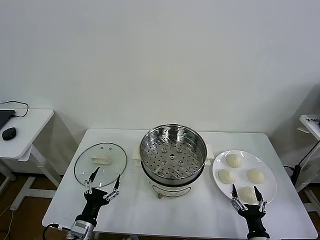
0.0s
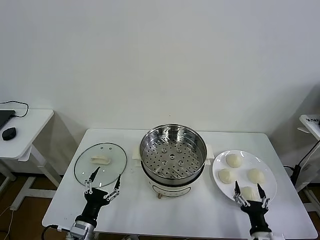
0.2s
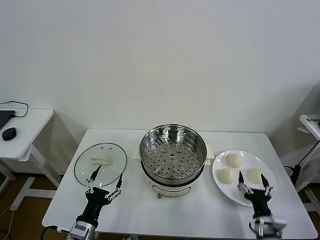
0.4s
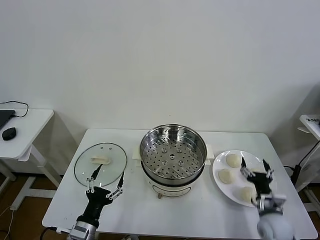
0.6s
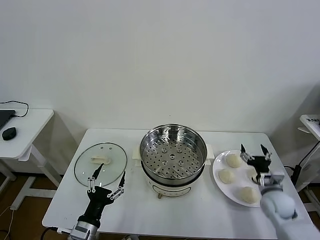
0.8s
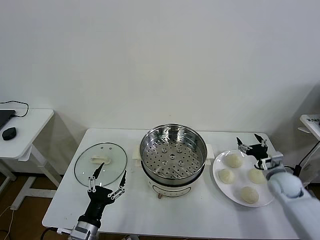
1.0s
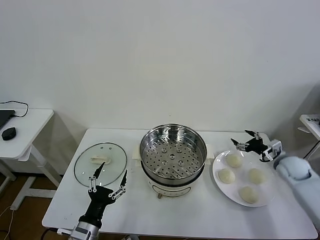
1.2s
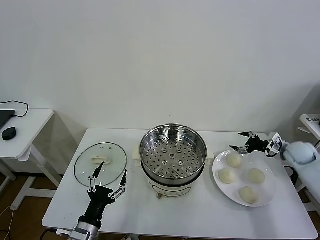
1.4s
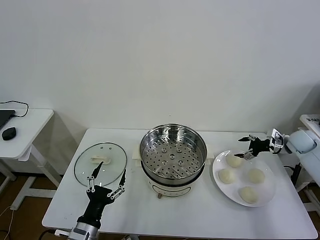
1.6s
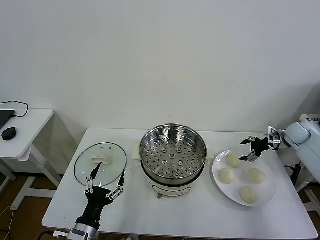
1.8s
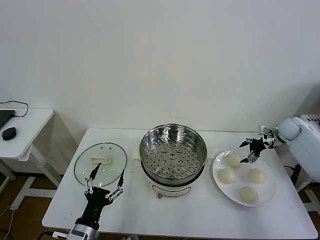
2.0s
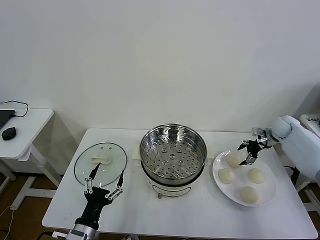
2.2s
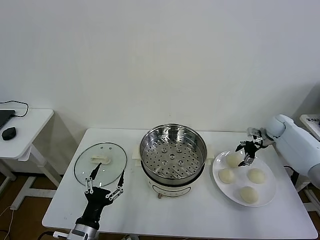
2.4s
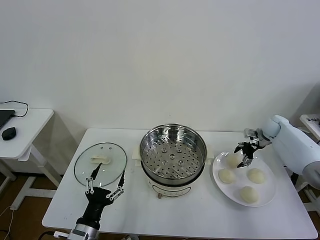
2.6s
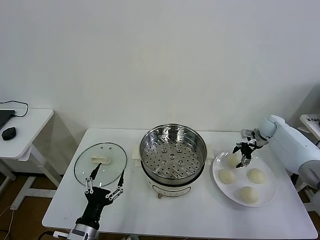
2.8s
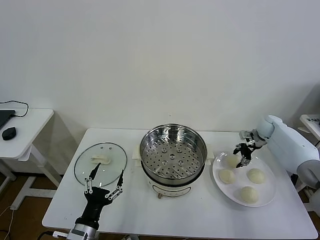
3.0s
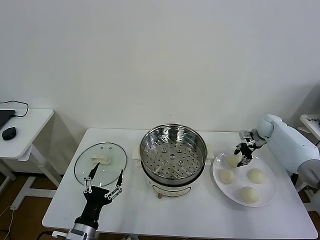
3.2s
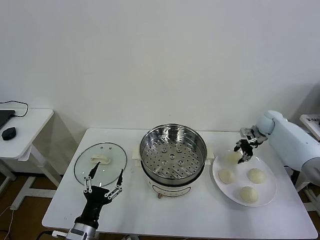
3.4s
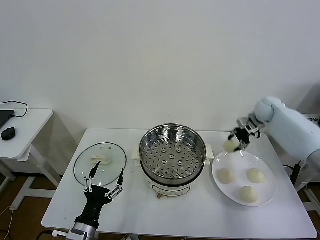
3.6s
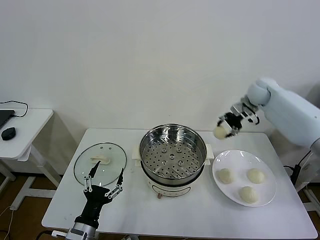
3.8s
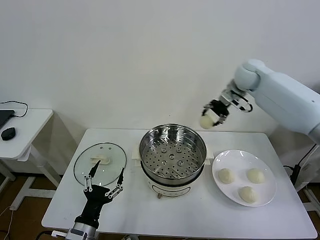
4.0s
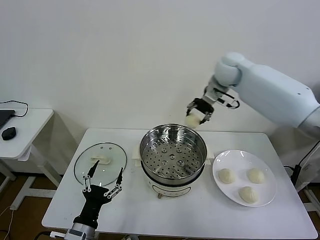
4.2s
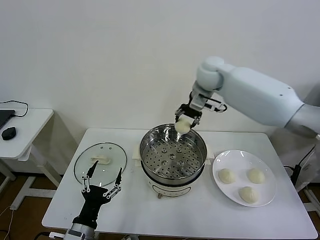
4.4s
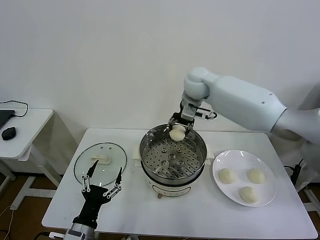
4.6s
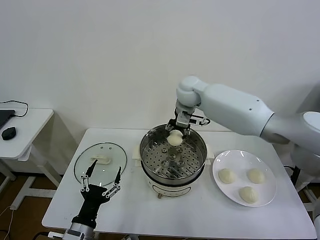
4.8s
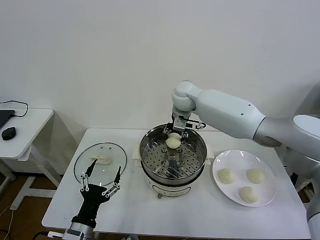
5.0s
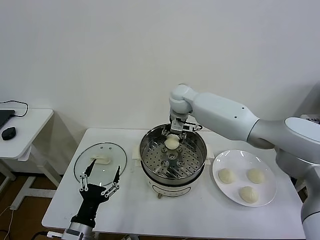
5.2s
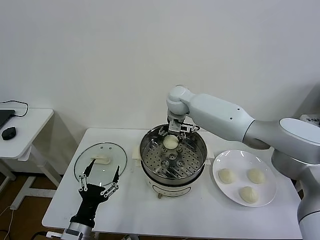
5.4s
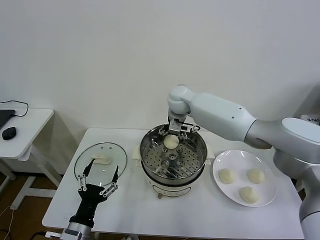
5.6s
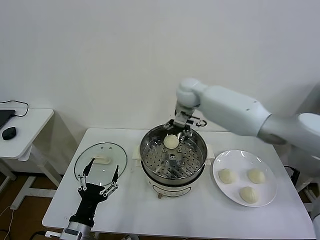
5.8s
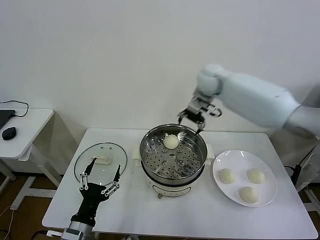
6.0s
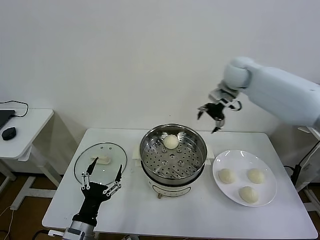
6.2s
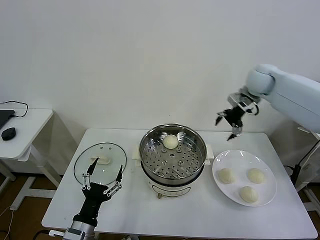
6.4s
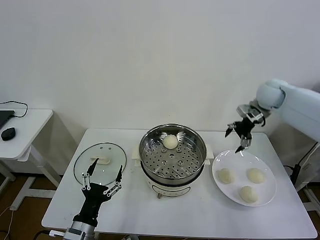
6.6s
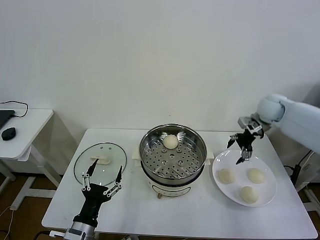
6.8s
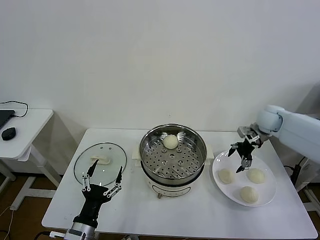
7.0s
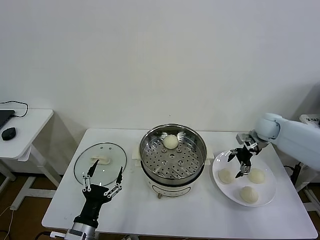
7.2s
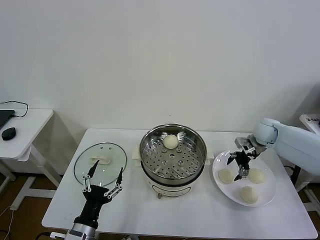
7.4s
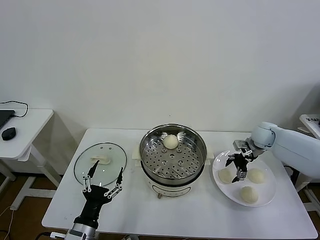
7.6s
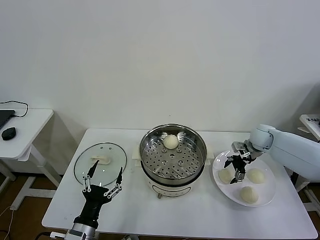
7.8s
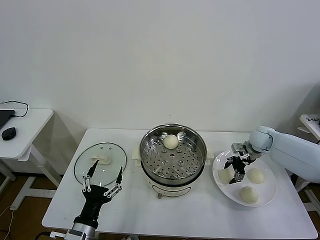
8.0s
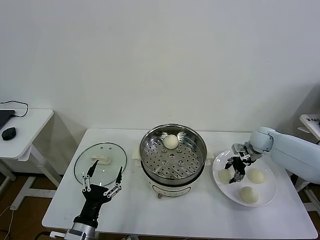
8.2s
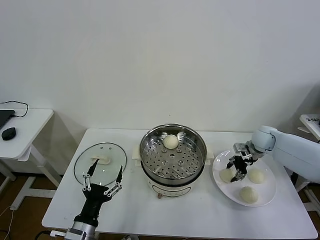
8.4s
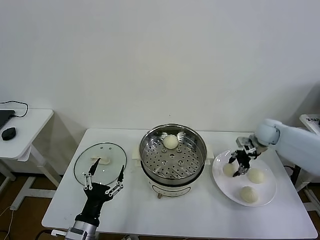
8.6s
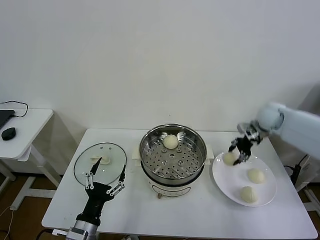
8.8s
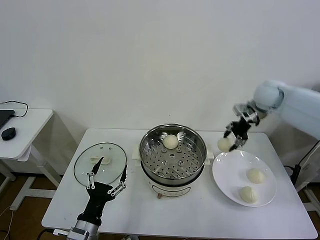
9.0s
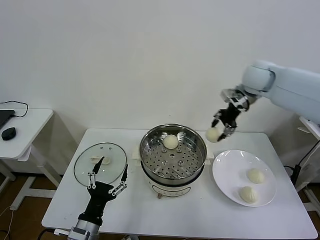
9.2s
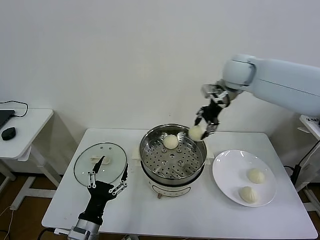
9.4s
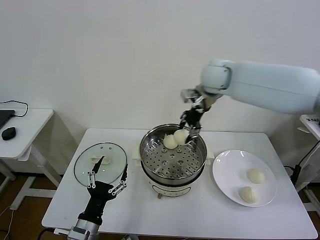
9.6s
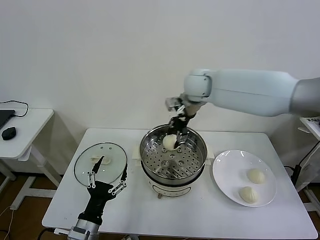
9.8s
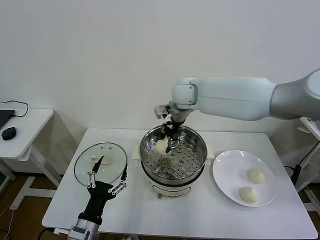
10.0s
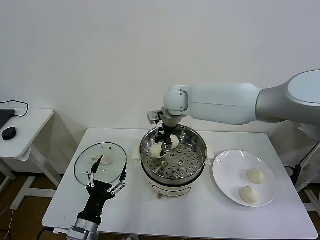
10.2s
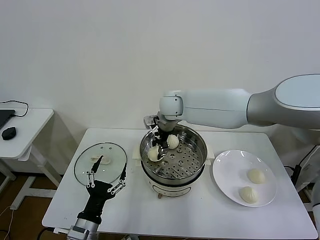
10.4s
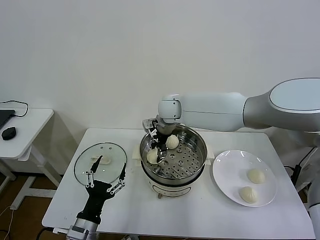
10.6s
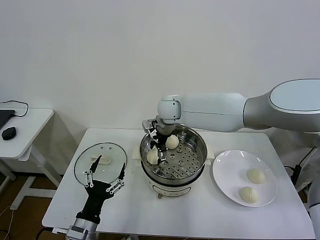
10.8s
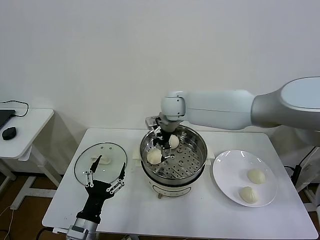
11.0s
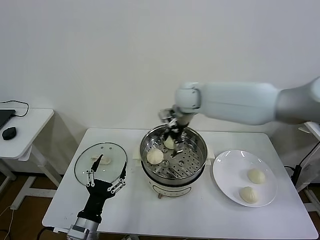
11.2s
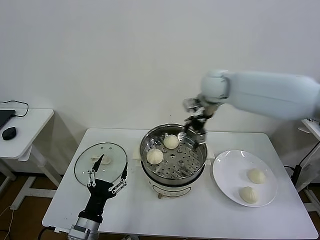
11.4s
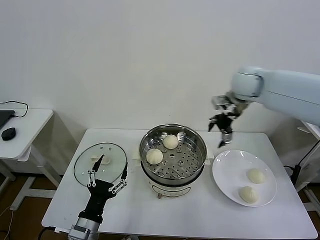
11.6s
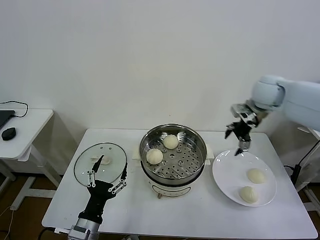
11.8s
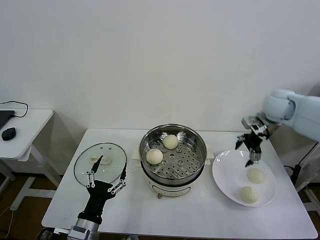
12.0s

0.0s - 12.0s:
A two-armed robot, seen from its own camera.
Task of the whole recording: take steamed baozi put them in steamer then cover it.
Step, 0.0s - 3.0s: Grasp the baozi in the plate with right gripper.
Step, 3.2s - 5.4s: Place the baozi on the steamer with right gripper.
Step, 5.8s - 8.2s: Grasp the baozi in the plate with right gripper.
Step, 8.4s - 10.6s: Place the baozi on the steamer with right gripper.
1.6s - 3.0s: The right gripper shifts some 10 cm forward and to the left, and closes its fingers.
3.0s - 4.4s: The right gripper heads to the left and upward, covering about 40 cm.
4.4s - 6.0s: The right gripper is displaced to the right by some 5 cm, and opens its fingers.
6.0s - 7.6s: The right gripper goes roughly 30 cm downward and to the right.
7.6s - 9.0s: The right gripper shifts approximately 20 cm upward, and closes its fingers.
9.0s - 10.4s: The right gripper travels to the left by about 30 cm.
10.4s - 12.0s: The right gripper heads to the right, covering some 35 cm, and opens up.

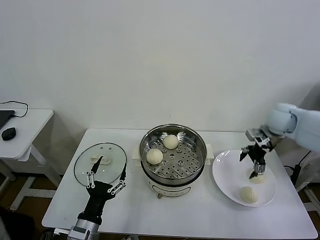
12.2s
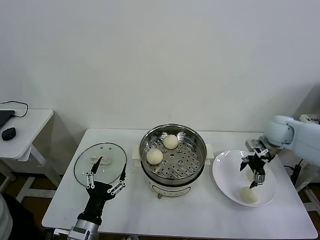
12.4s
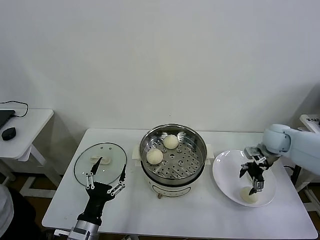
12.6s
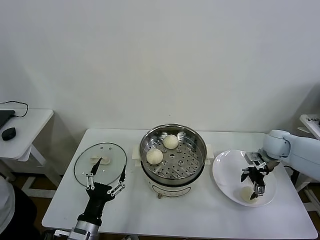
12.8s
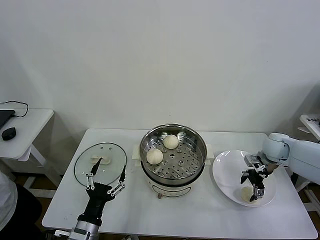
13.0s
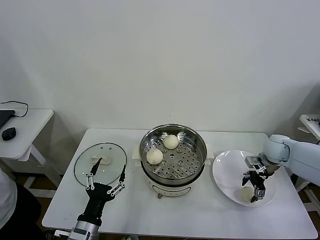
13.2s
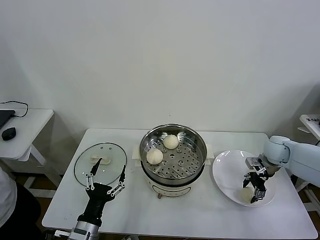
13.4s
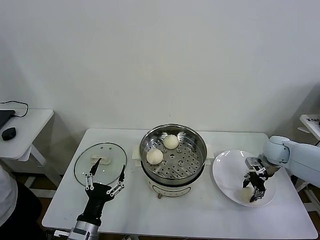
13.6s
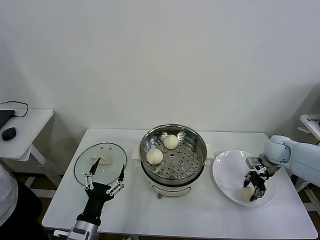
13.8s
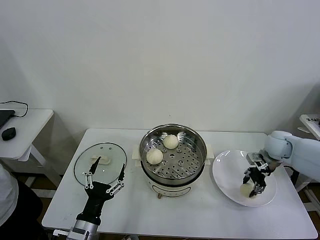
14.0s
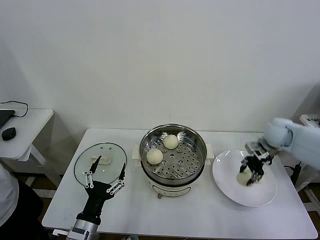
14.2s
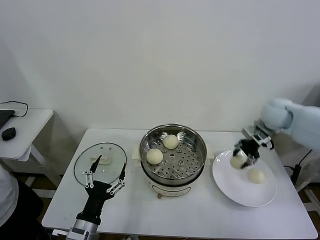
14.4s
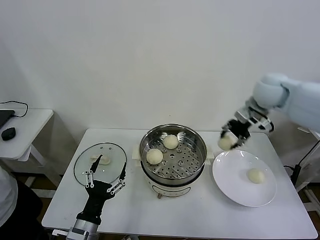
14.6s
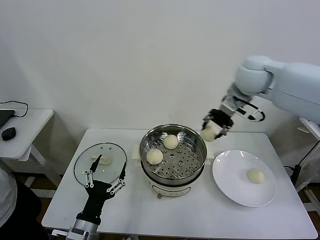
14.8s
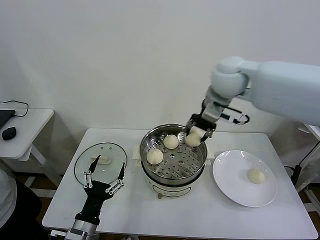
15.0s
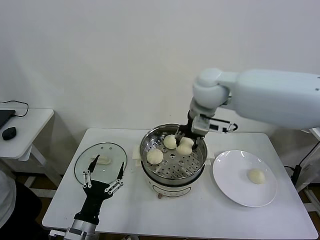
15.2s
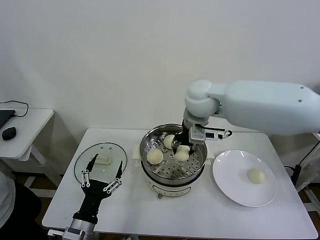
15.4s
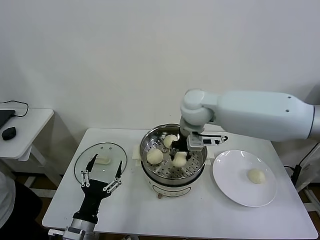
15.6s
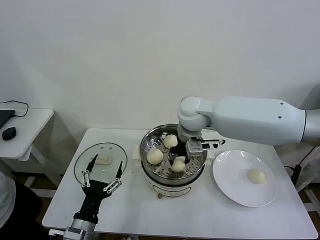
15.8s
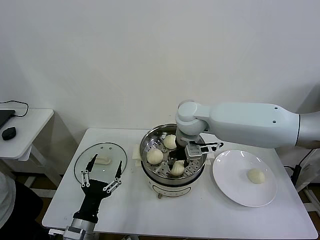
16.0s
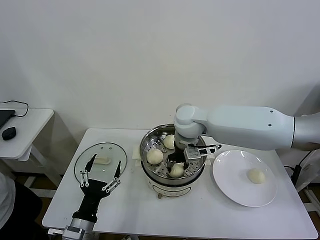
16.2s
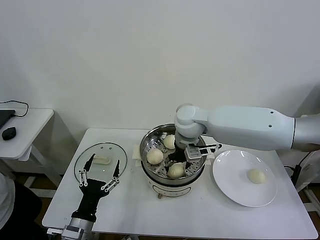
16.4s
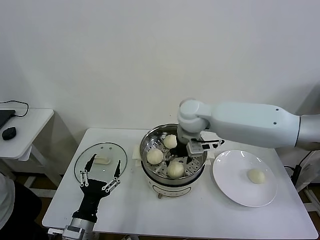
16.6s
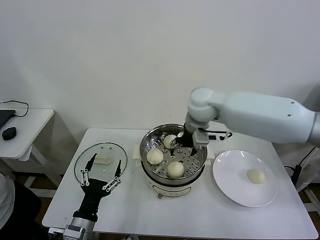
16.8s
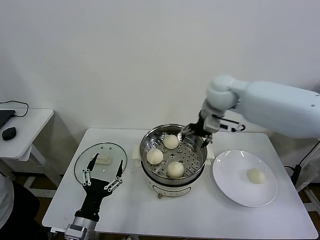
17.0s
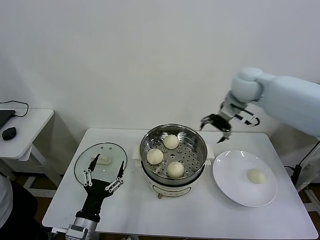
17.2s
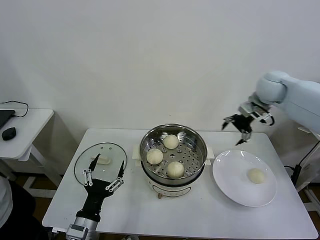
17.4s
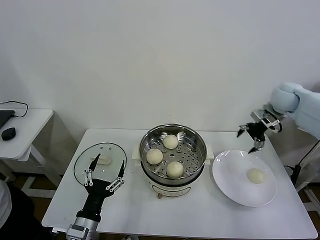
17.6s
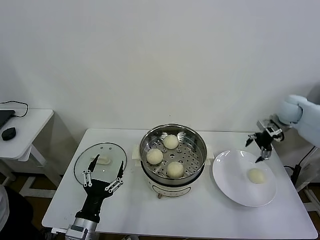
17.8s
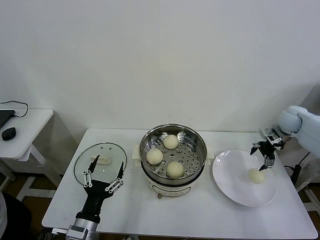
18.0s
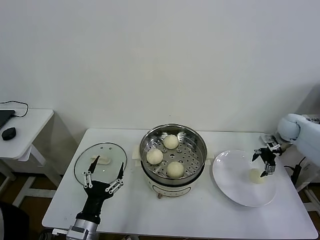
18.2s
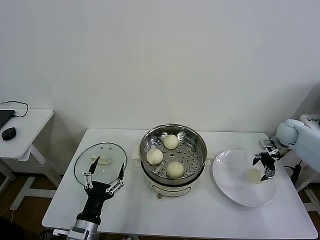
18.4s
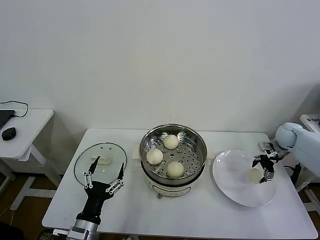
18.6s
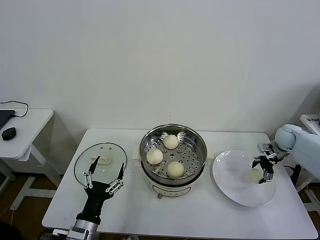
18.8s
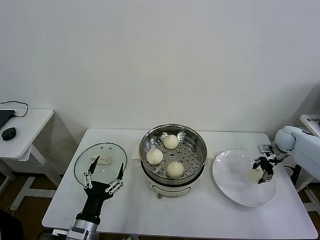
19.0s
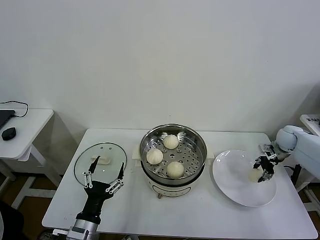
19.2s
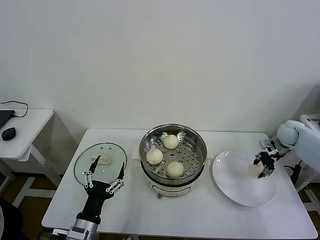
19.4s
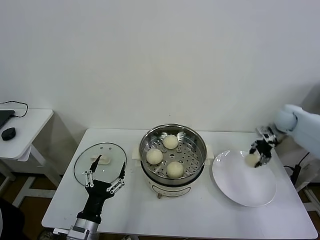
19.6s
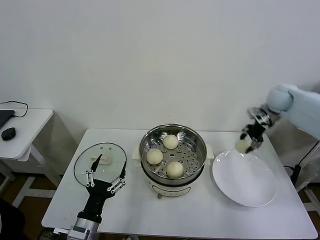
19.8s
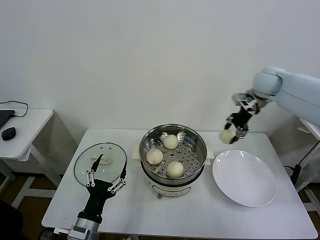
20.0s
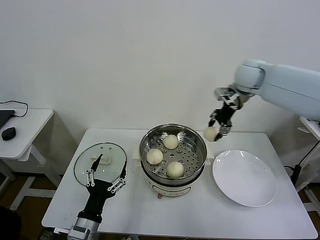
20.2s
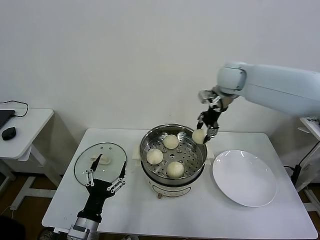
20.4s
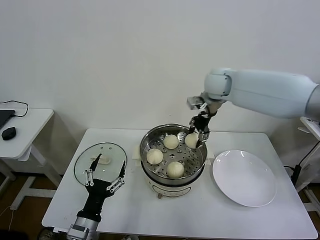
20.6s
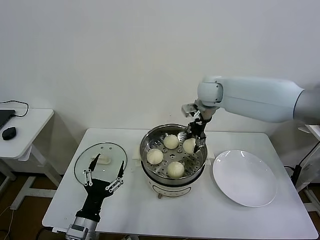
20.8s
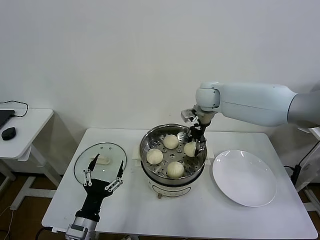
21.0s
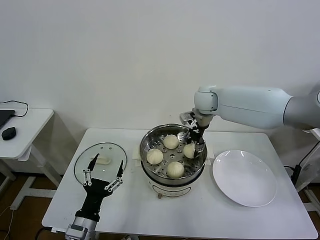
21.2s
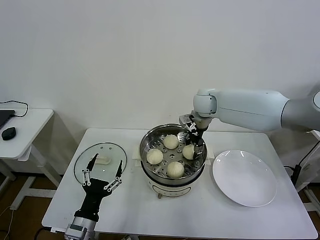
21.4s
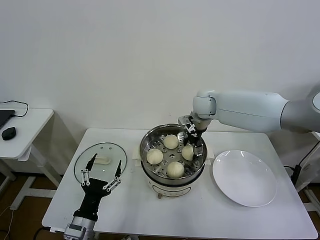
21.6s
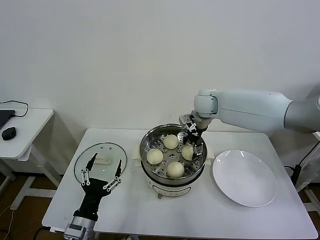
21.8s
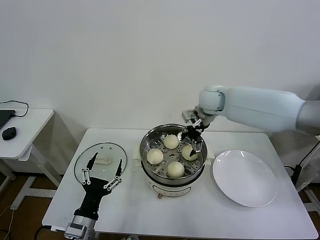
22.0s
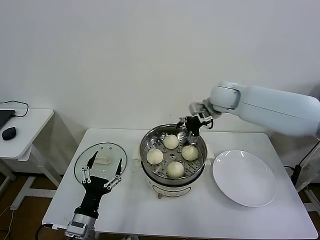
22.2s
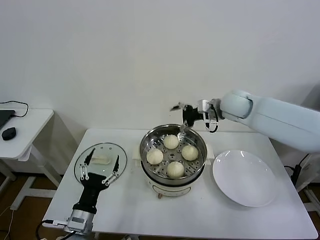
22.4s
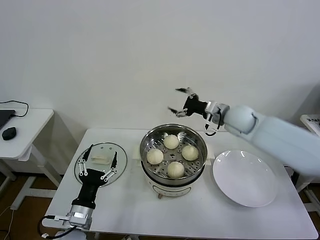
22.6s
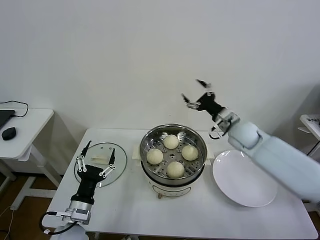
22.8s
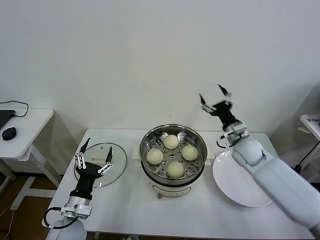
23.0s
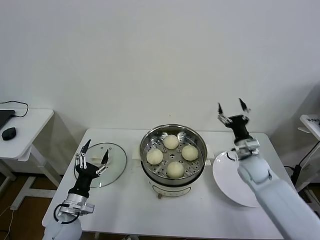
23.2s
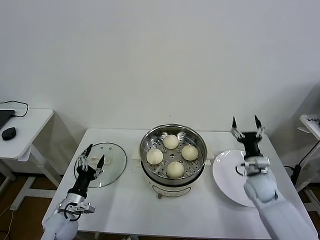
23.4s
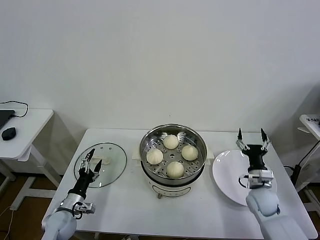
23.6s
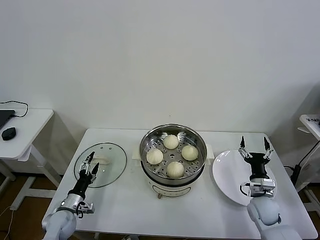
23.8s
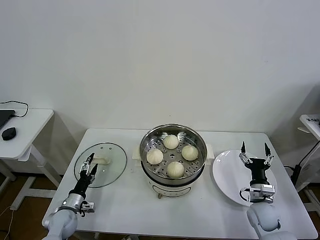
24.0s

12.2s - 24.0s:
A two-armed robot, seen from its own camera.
Task of the whole recording: take steamed baozi put them in steamer then cover it.
Step, 14.0s - 16.4s: Place the baozi on the steamer with right gripper.
Step, 16.6s - 19.0s: Grasp the baozi in the plate with right gripper.
Step, 19.2s - 21.6s: Place the baozi on the steamer with right gripper.
12.2s - 13.6s: The right gripper is displaced downward by roughly 10 cm, and closes its fingers.
13.6s - 15.2s: The right gripper travels to the left and upward by approximately 40 cm.
15.2s - 16.6s: The right gripper moves downward, roughly 10 cm, and opens up.
16.6s - 18.2s: The right gripper travels to the right by about 40 cm.
18.2s - 19.6s: The right gripper ends up approximately 5 cm from where it was, and closes.
19.6s - 21.0s: The right gripper shifts some 30 cm to the left.
21.0s - 22.6s: The right gripper travels to the right and backward by about 10 cm, and opens its fingers.
22.6s - 24.0s: The right gripper goes approximately 35 cm downward, backward and to the right. The left gripper moves downward, to the left and forward, roughly 20 cm.
